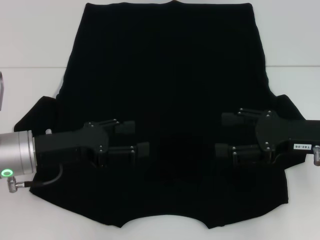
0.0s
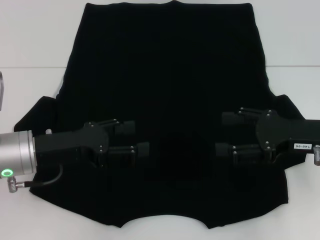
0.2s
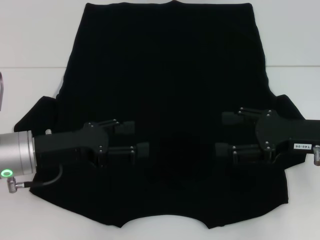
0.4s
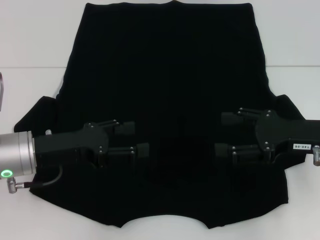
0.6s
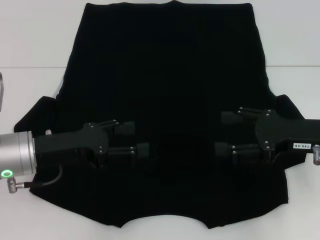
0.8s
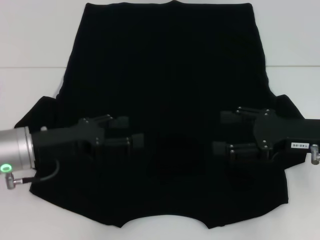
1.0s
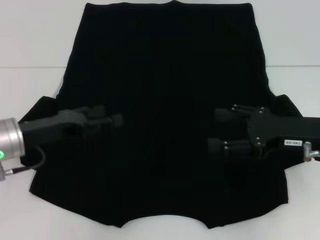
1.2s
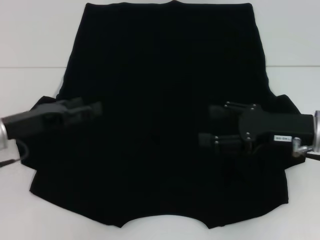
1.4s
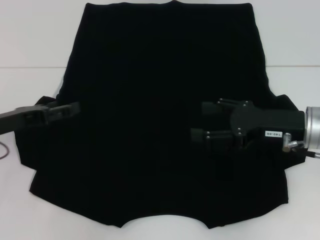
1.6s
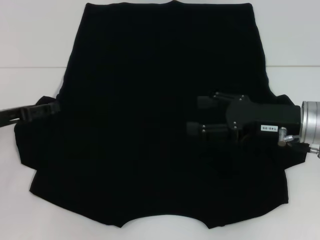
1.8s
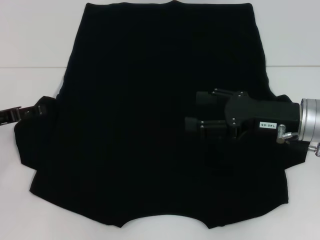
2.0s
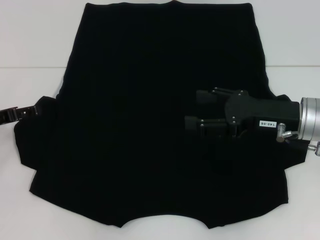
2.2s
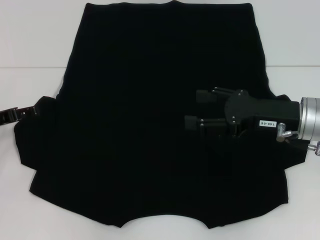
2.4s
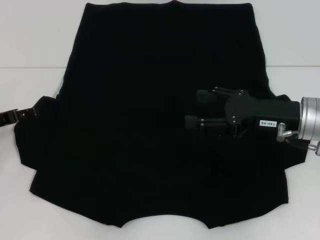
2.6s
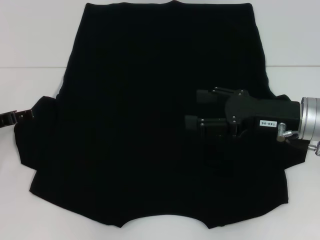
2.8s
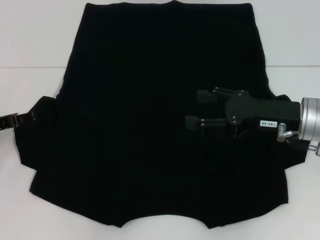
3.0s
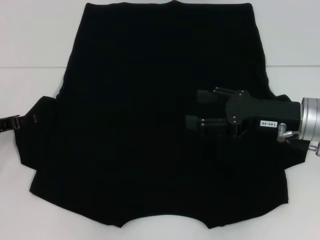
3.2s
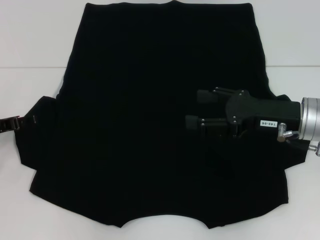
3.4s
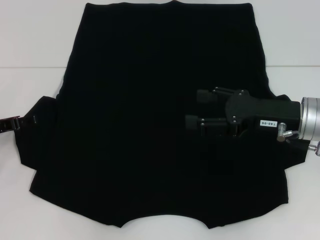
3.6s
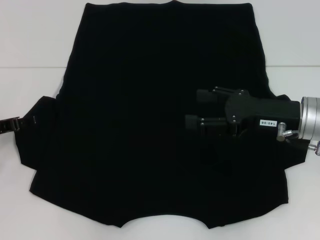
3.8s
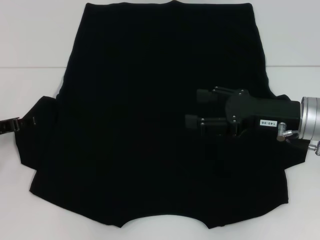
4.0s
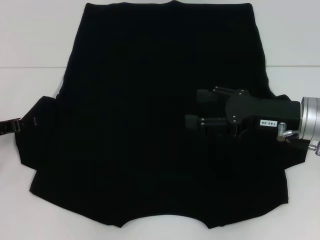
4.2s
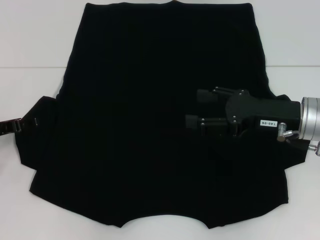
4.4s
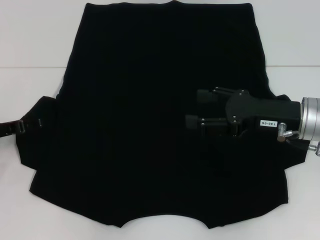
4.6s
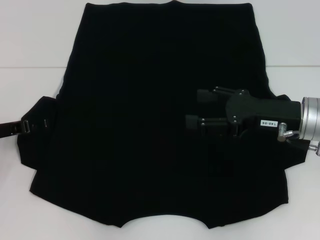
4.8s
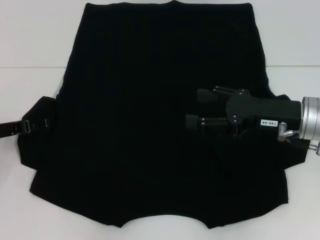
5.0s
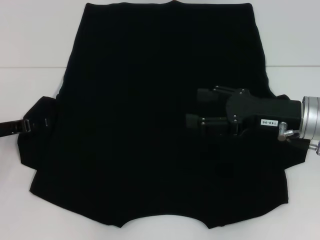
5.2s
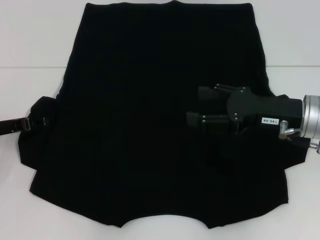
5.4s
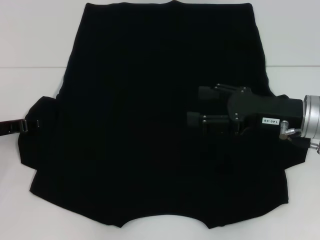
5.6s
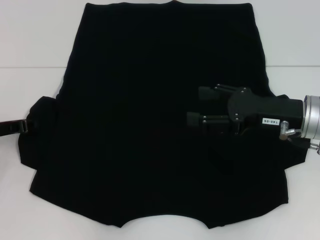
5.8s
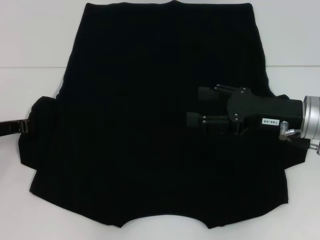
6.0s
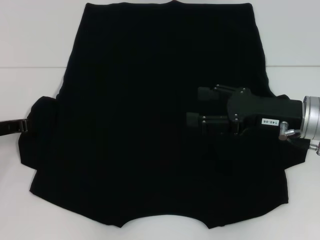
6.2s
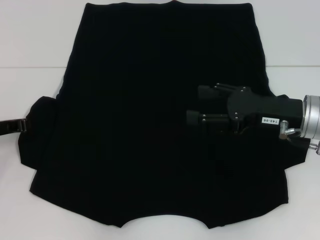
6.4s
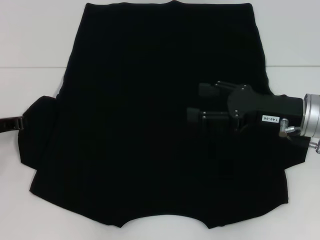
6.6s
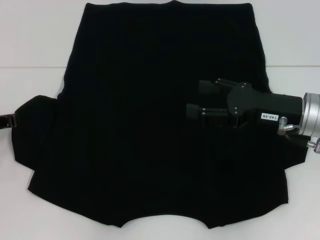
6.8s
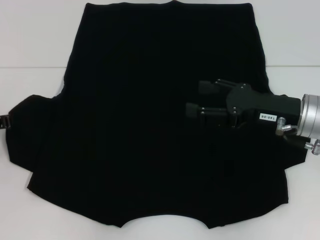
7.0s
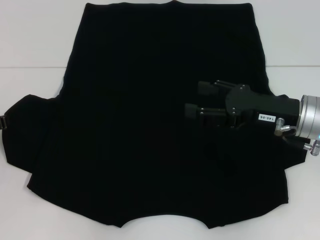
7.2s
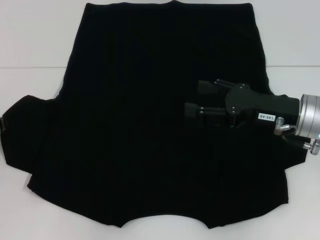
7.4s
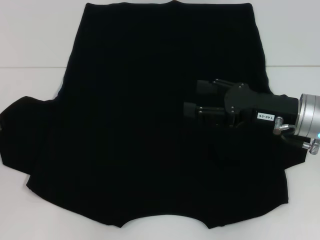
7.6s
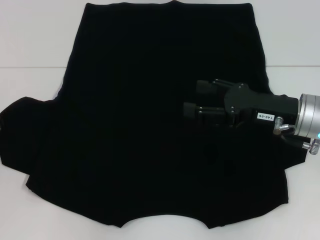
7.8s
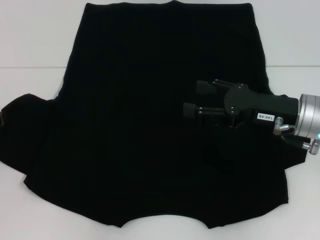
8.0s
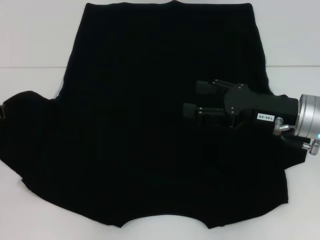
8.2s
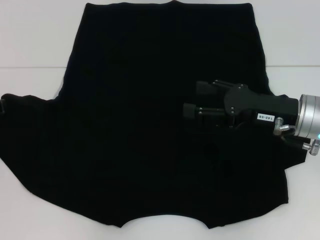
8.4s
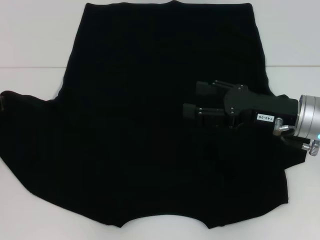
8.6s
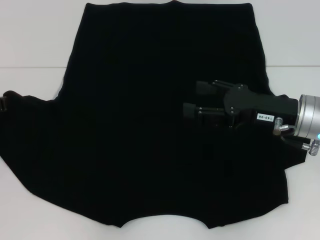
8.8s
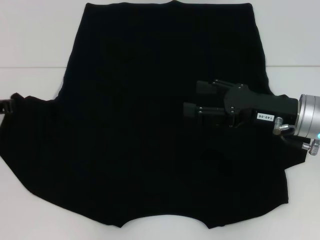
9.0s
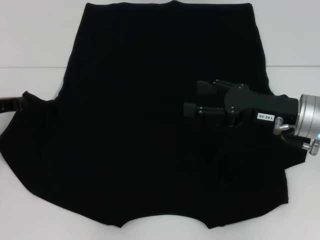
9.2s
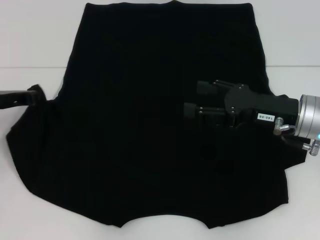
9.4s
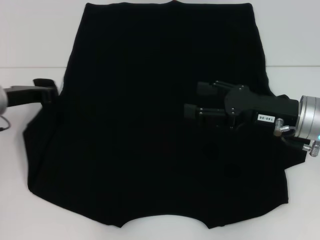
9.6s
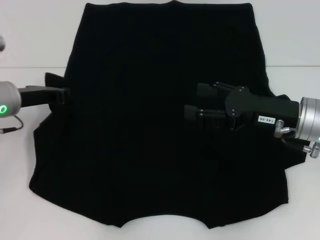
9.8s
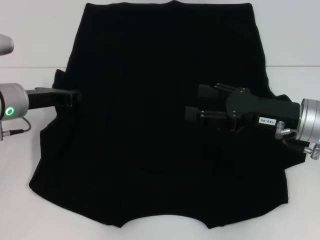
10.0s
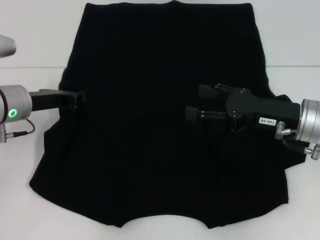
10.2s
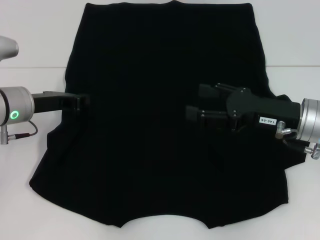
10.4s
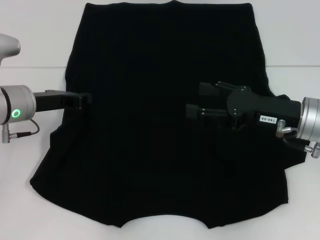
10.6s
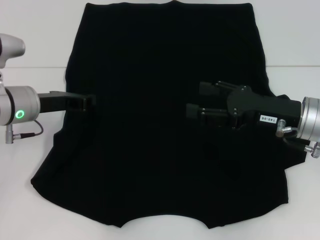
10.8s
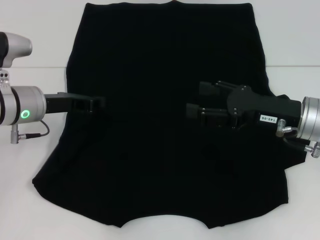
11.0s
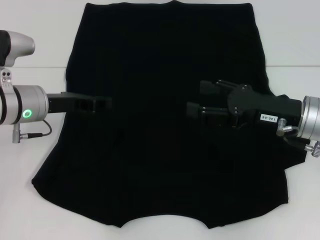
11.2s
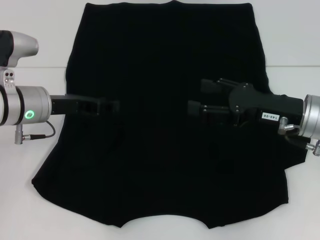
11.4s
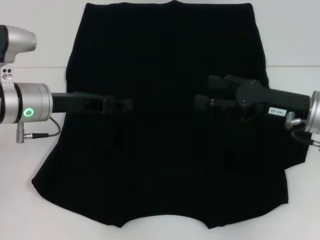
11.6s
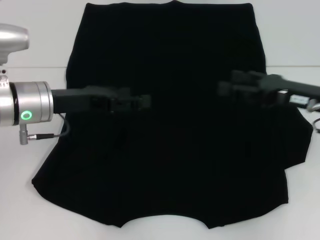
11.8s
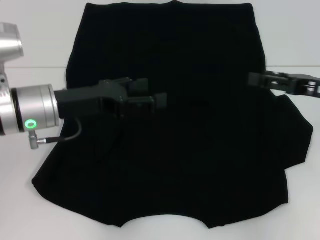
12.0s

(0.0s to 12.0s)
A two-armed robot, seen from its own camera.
Step, 0.0s - 11.6s: Fold the bottom left sleeve with your left hand.
0.0s - 1.6s: The left gripper heads to the left, covering approximately 5 cm.
3.0s - 4.4s: Both grippers stay about where they are.
6.0s - 9.0s: The grippers stay close to where they were, moving slightly.
9.0s - 10.4s: The left gripper shifts some 10 cm to the right.
10.4s - 12.0s: The right gripper shifts about 10 cm to the right; the left gripper ends up some 5 cm from where it was, and opens up.

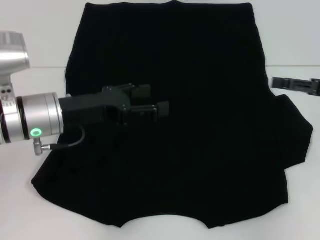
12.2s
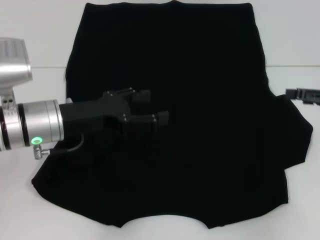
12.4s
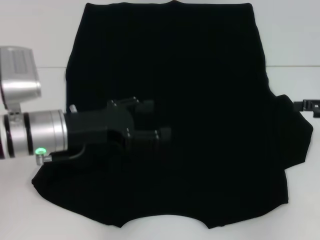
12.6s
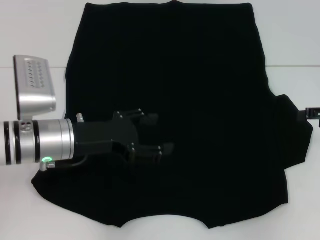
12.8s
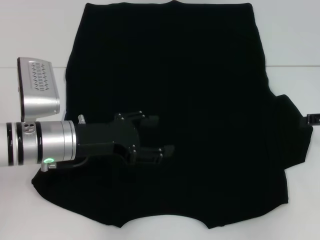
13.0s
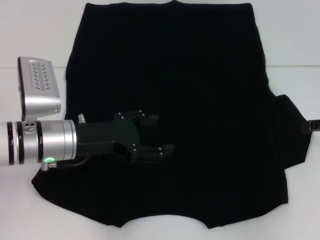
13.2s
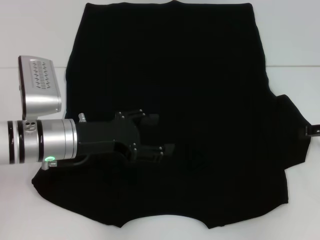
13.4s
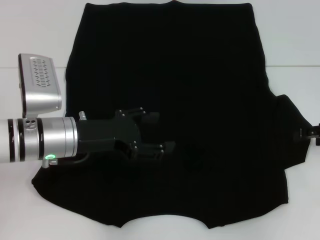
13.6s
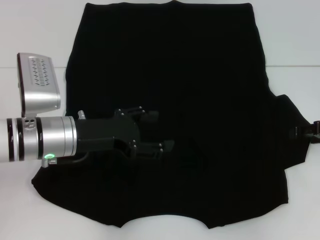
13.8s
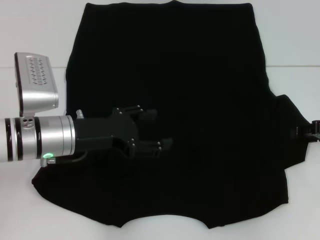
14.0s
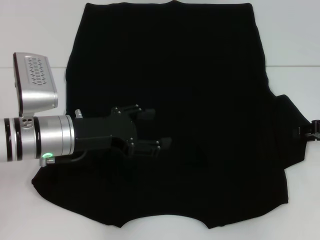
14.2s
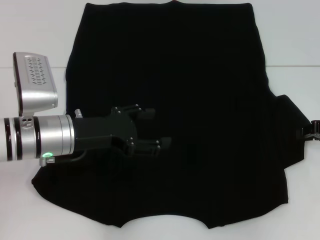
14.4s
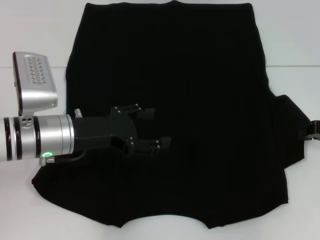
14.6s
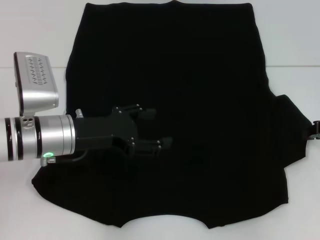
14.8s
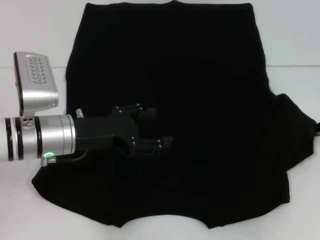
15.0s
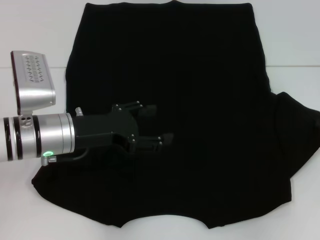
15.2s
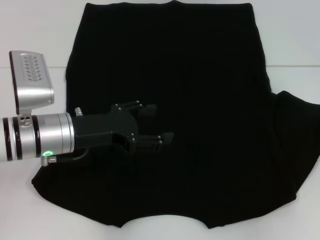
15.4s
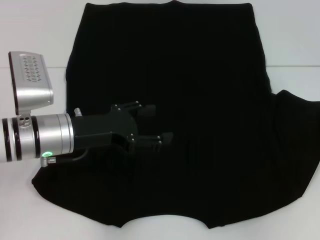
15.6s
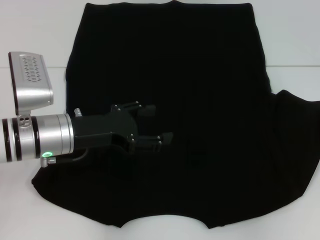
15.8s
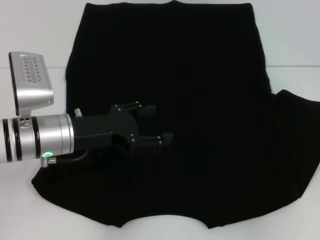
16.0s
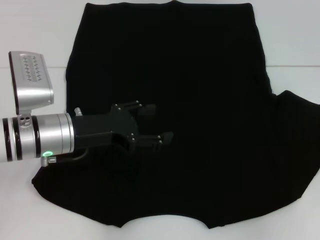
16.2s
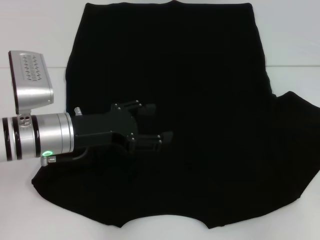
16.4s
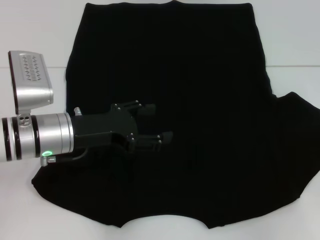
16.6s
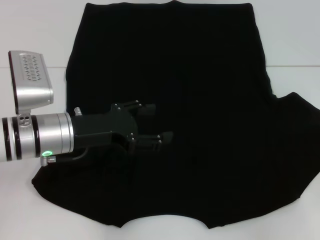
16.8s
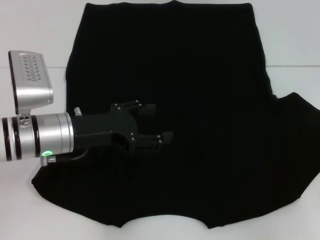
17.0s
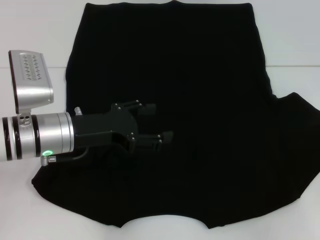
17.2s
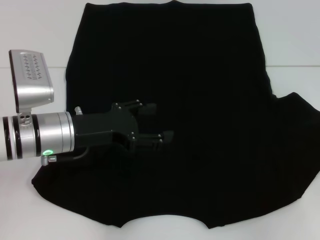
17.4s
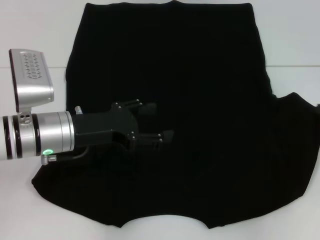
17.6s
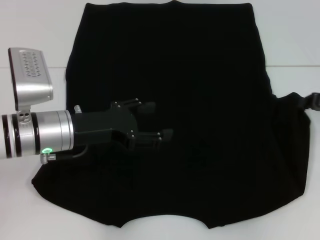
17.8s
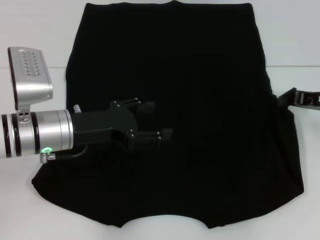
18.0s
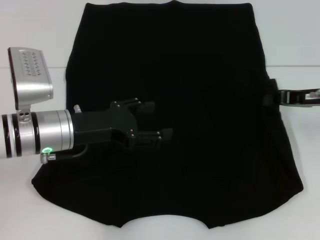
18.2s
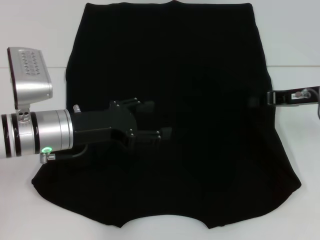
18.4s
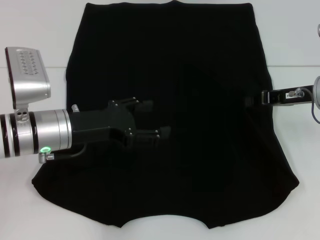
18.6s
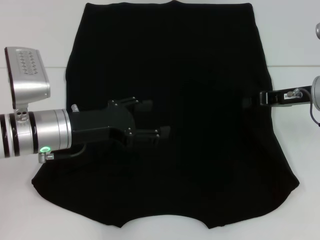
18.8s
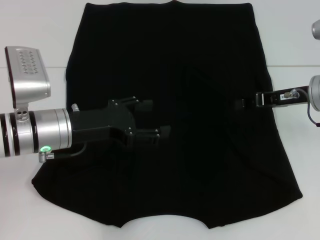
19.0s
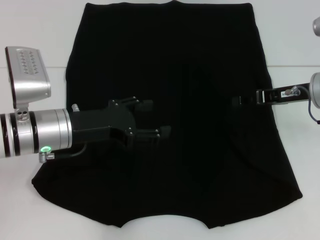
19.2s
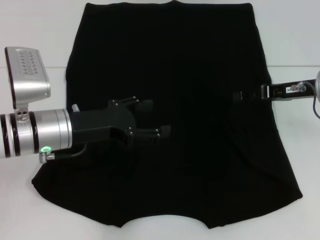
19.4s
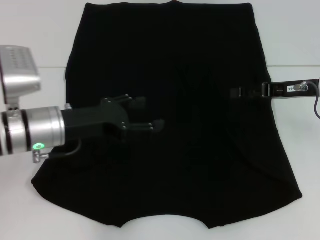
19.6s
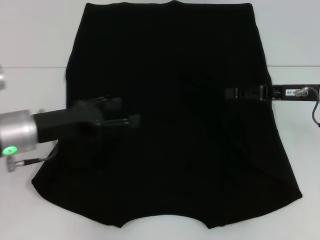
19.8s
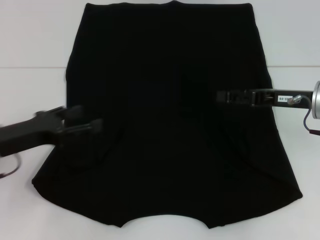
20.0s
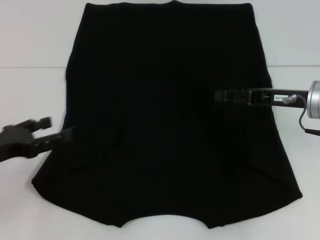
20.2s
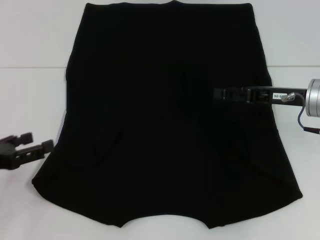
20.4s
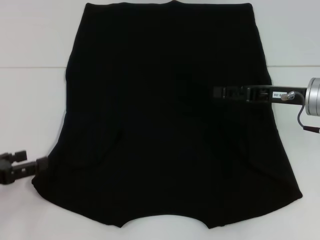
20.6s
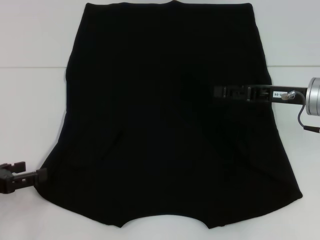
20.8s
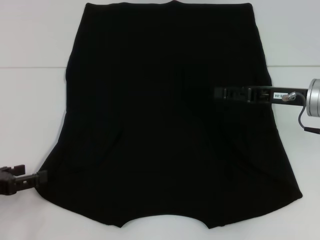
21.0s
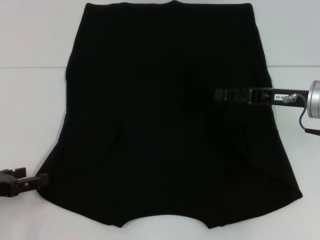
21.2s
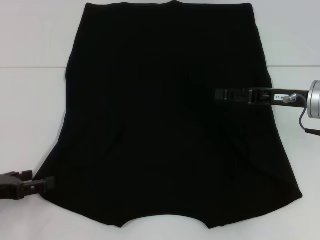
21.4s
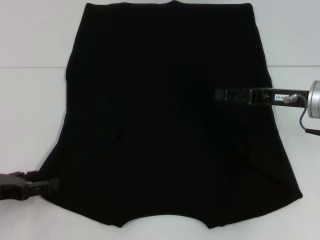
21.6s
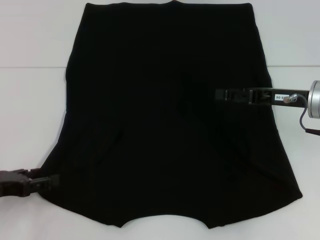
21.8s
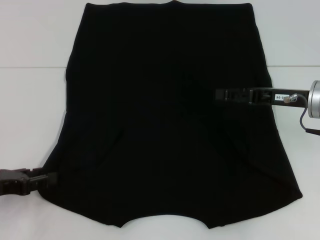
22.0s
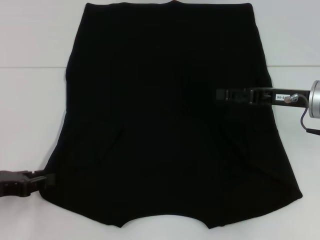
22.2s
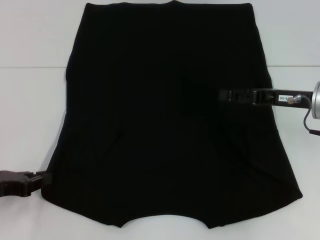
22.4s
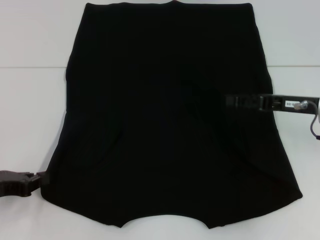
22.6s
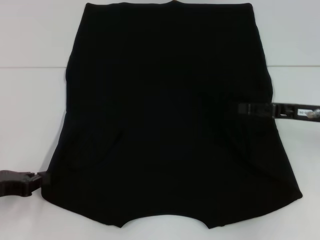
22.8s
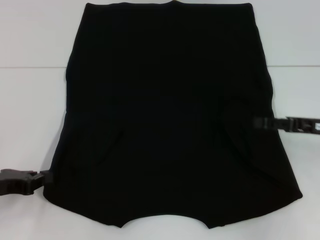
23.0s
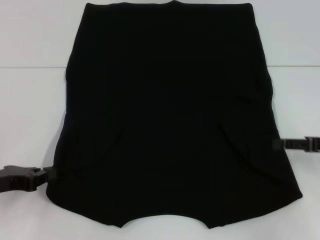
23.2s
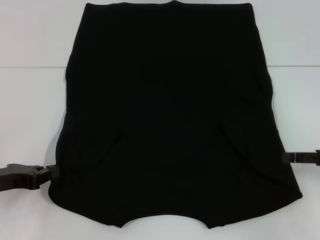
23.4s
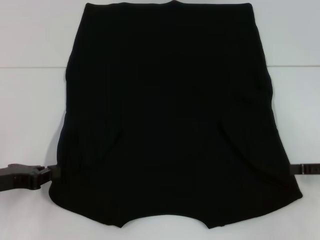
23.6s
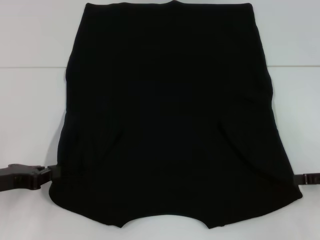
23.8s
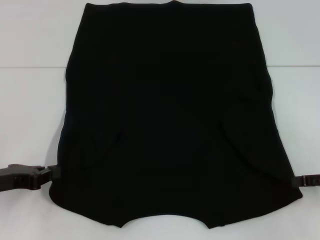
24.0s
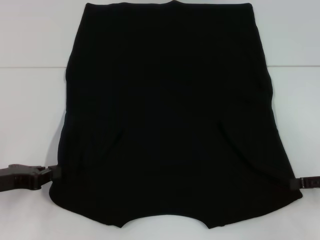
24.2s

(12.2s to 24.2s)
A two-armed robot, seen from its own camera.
Step, 12.2s - 19.2s: Fold the bottom right sleeve with your right hand.
Step, 19.4s - 23.4s: Grab the bottom left corner with your left hand.
13.8s - 15.2s: The right gripper closes.
15.2s - 16.6s: The grippers move only a little.
16.6s - 18.2s: The right gripper moves to the left, some 10 cm.
18.2s - 19.8s: The right gripper opens.
19.8s - 21.2s: The left gripper goes about 15 cm to the left and backward.
21.2s - 22.6s: The left gripper closes.
22.6s - 24.2s: The right gripper heads to the right and backward, covering approximately 10 cm.
